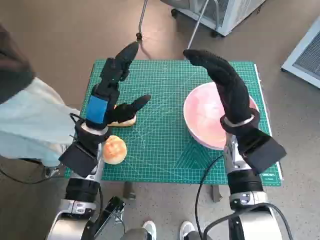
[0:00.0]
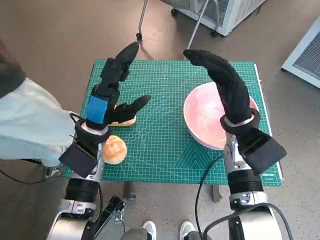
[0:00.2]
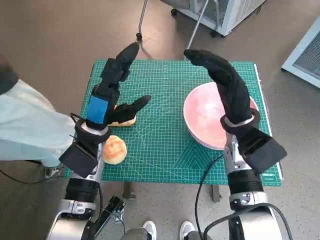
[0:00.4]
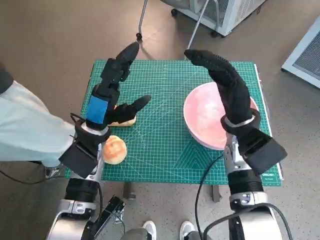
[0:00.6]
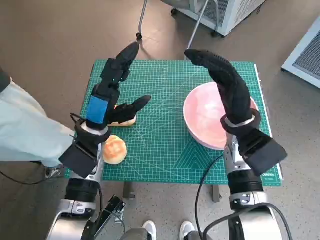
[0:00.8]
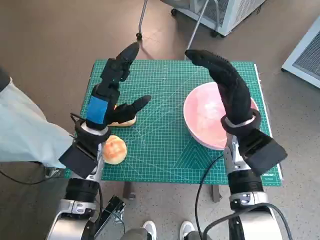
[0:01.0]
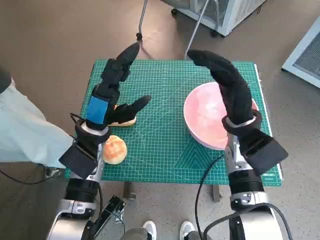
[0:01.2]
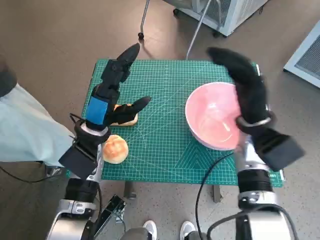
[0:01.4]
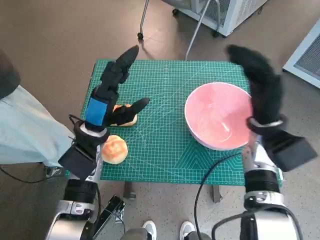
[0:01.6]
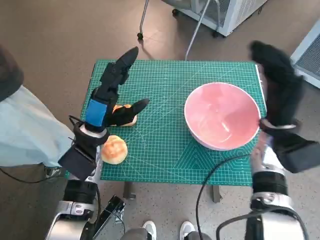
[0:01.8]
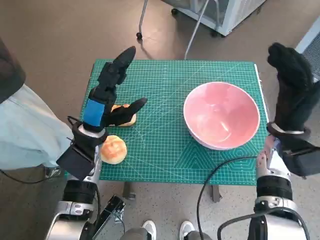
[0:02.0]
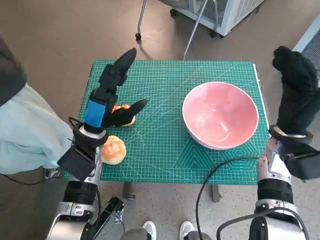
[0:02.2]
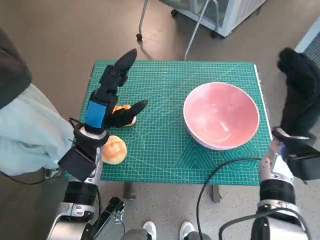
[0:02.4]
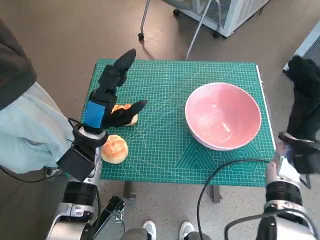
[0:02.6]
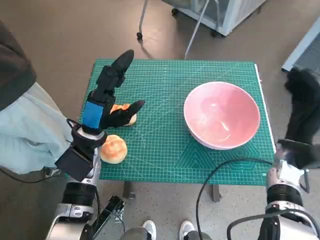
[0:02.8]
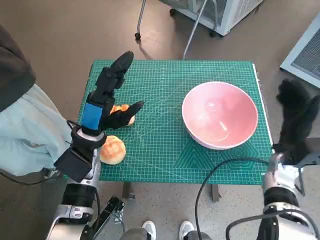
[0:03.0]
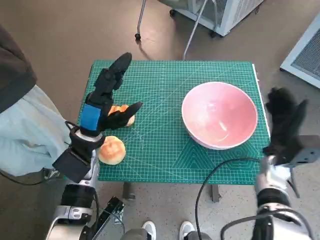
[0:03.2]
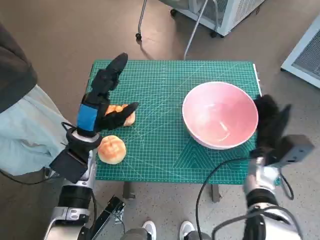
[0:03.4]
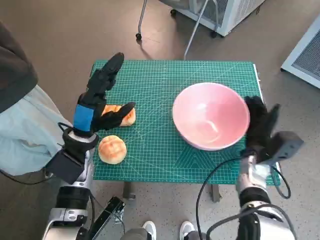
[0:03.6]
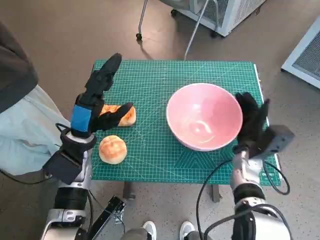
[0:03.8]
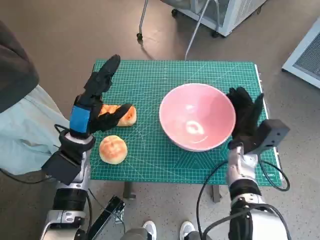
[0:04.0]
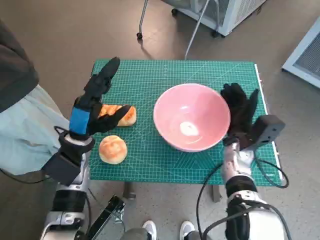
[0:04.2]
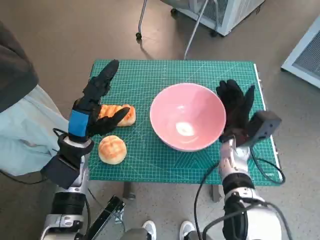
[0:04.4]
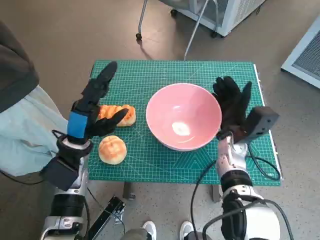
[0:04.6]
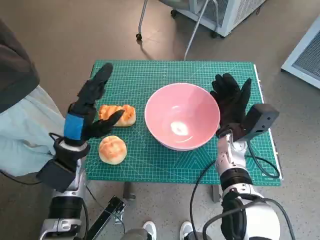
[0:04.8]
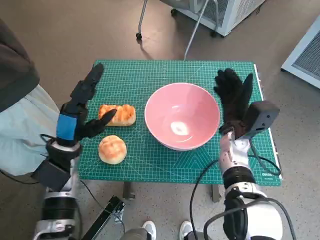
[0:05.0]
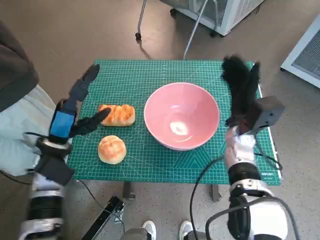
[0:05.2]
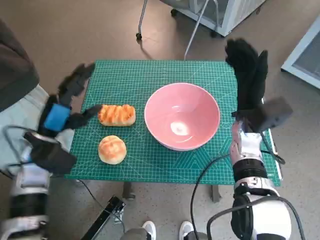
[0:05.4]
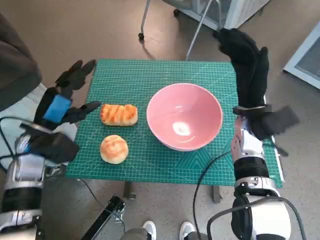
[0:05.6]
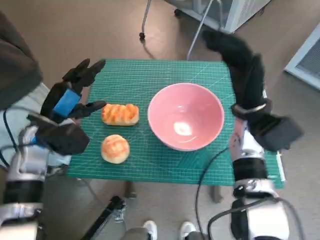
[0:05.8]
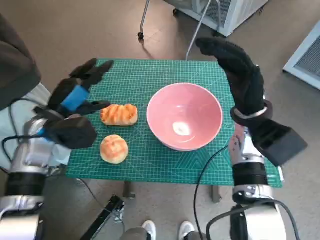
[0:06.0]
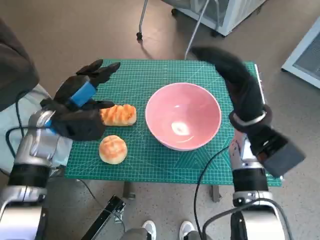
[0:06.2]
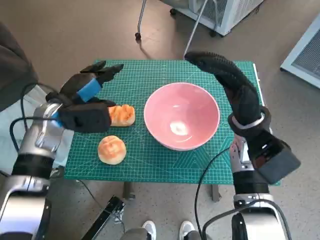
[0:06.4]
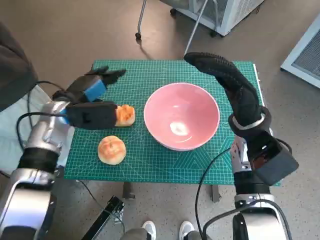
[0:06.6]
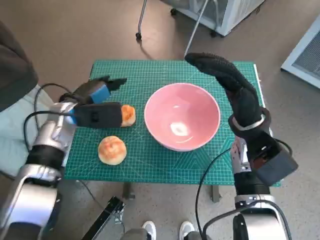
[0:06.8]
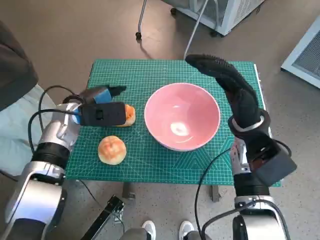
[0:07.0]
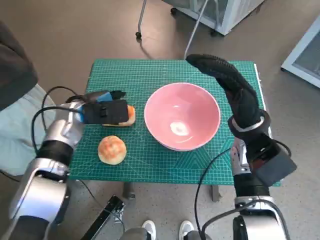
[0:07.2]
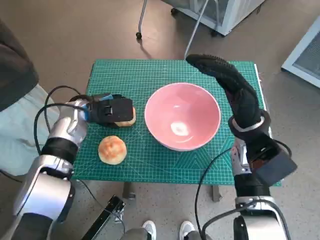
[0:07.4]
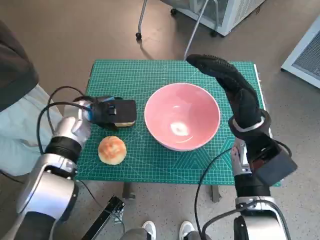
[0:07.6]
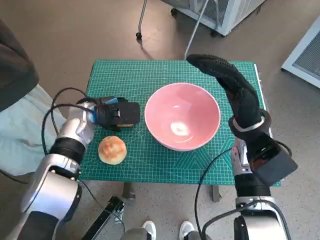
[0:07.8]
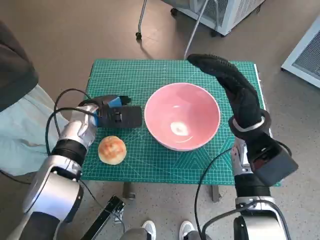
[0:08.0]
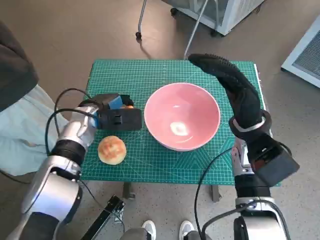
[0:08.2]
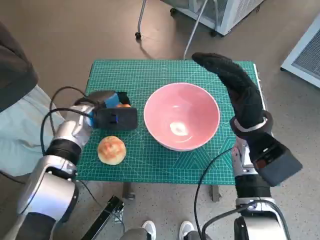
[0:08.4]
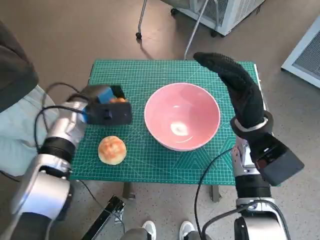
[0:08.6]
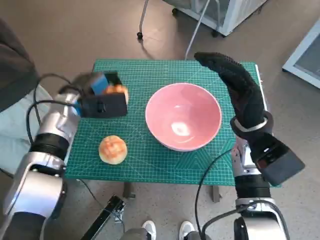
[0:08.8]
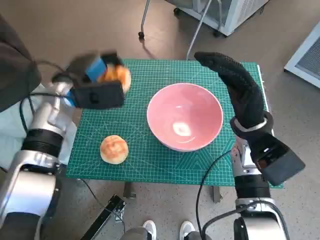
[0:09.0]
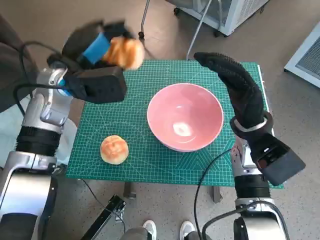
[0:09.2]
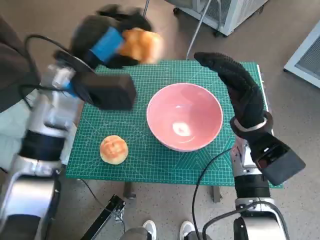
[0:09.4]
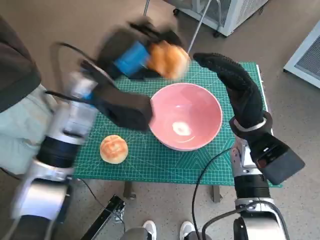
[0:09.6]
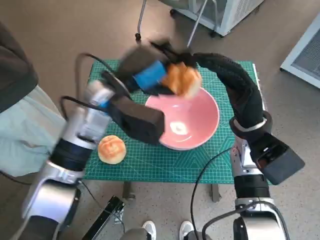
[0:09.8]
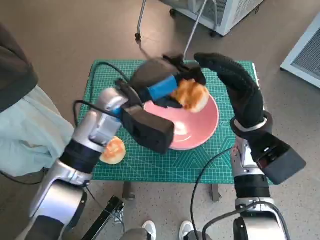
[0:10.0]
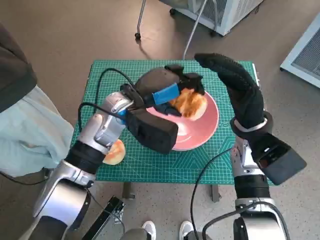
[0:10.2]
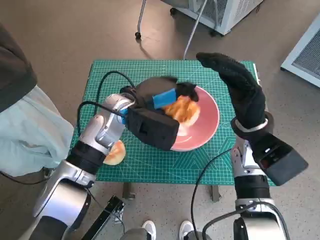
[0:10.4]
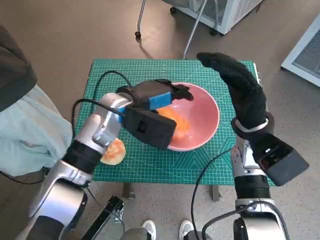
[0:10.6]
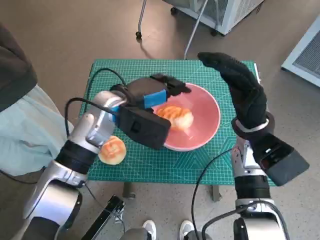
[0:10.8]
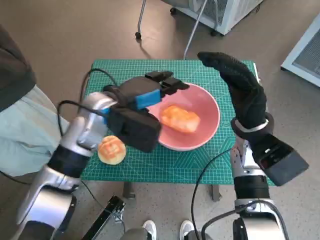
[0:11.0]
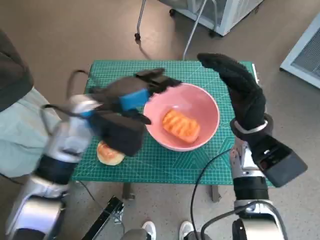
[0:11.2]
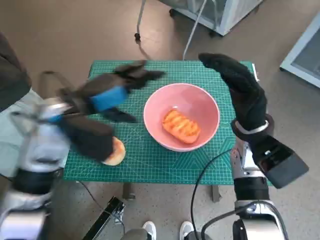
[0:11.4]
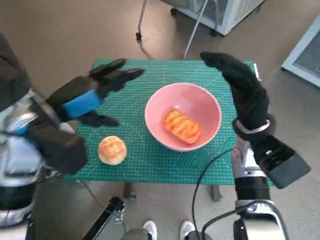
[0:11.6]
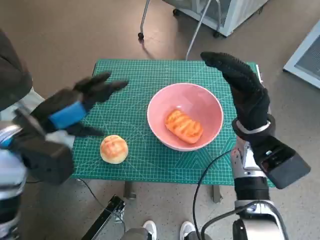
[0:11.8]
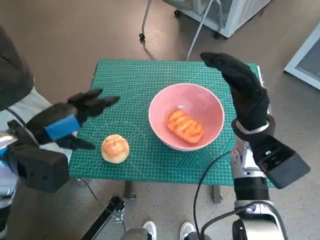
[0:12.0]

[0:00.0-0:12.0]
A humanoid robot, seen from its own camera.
Task of the whole recording: Push the bowl to the center of the table and put the bread into the bowl.
Step, 0:00.0 to 0:04.8: Move the pink bowl to the center of table with right hand.
Step, 0:05.2 to 0:08.2: Grasp the long bread with left hand.
Step, 0:08.4 to 0:11.0: Place the long bread in pink bowl with left hand.
0:01.6 to 0:03.0: The right hand is displaced to the right and downward by roughly 10 cm.
0:03.0 to 0:04.4: The right hand goes approximately 10 cm to the left.
0:04.4 to 0:06.0: The left hand ends up about 5 cm from where it was. Meanwhile the right hand is displaced upward by about 10 cm.
0:06.0 to 0:07.6: The left hand moves forward and to the right, roughly 10 cm.
0:07.6 to 0:09.0: The left hand is displaced upward by approximately 5 cm.
0:09.0 to 0:10.4: The left hand goes roughly 10 cm to the right.
0:10.4 to 0:12.0: The left hand goes about 20 cm to the left and backward.

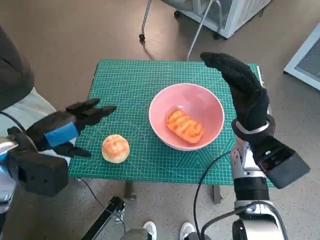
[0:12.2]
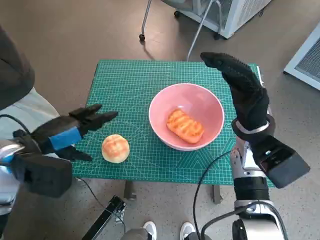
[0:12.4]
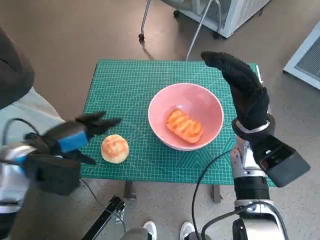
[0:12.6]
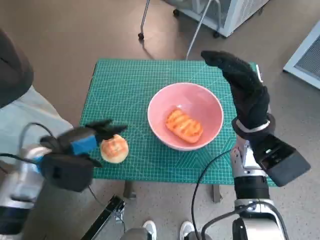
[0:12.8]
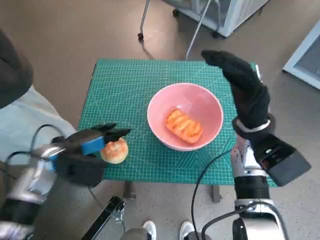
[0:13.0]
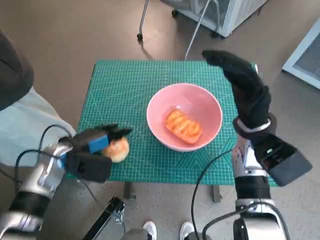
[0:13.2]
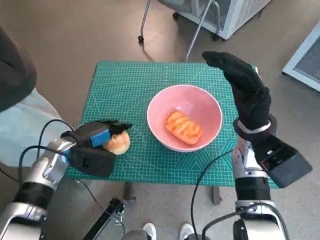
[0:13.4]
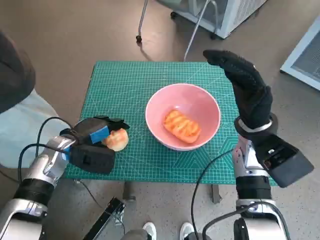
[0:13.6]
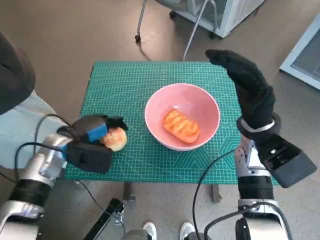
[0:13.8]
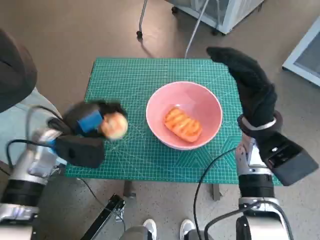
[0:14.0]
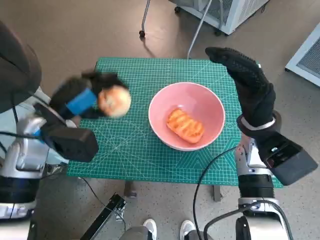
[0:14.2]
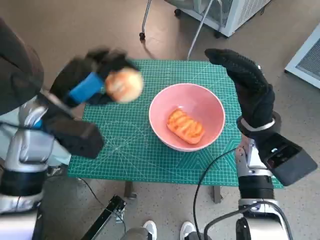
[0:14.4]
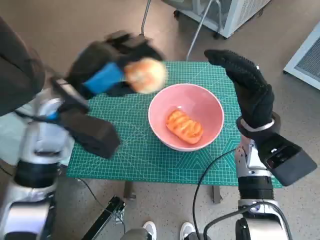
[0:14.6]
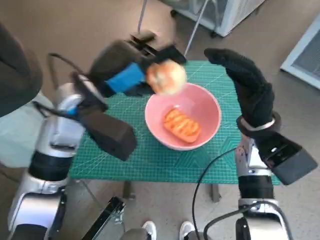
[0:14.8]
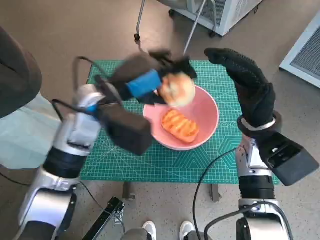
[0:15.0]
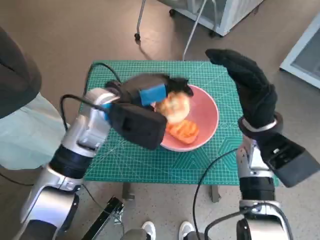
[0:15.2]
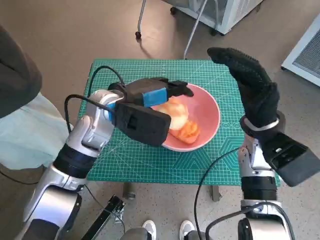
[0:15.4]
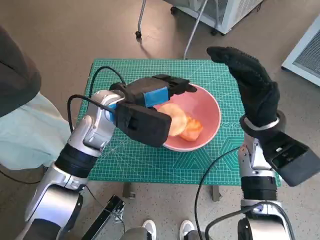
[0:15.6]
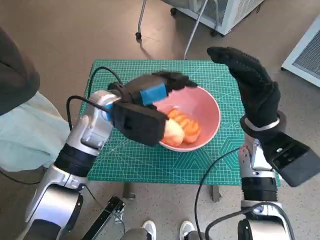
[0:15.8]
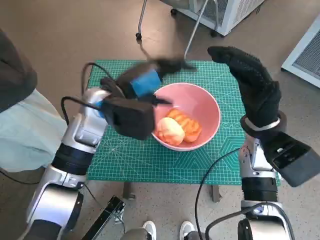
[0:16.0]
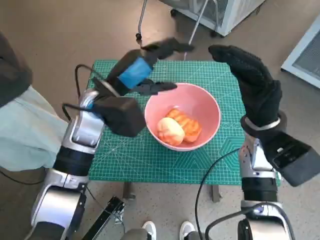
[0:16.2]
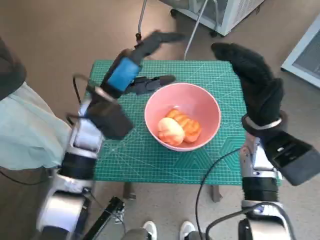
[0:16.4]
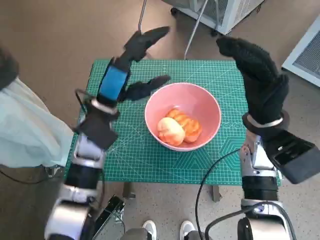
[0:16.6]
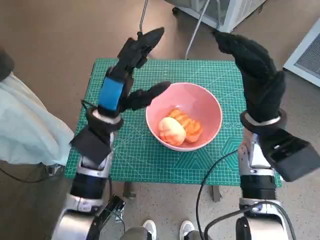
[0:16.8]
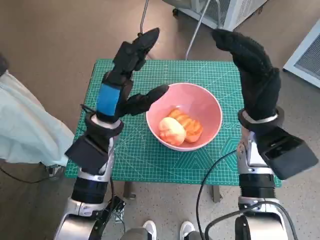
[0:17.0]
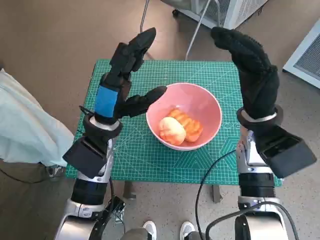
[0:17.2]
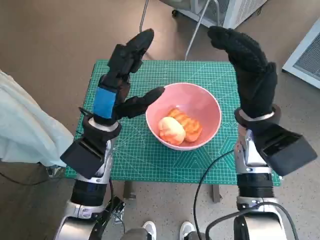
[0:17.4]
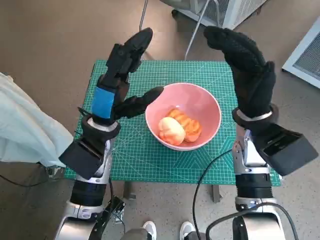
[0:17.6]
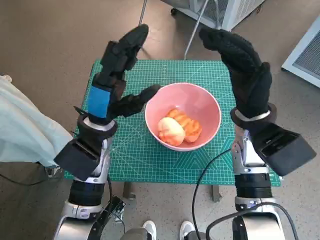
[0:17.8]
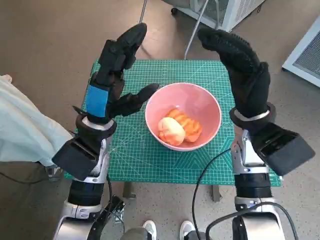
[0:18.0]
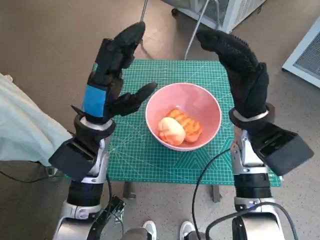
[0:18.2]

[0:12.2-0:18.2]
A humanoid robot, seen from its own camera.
Task of the whole recording: Push the bowl to the center of the table and put the bread into the bowl.
Step, 0:12.2 to 0:13.6: Grasp the round bread with left hand.
Step, 0:13.8 to 0:16.0: Place the round bread in pink bowl with left hand.
0:12.2 to 0:13.8: The left hand travels downward and forward by approximately 10 cm.
0:13.8 to 0:15.2: The left hand shifts roughly 15 cm to the right and upward.
